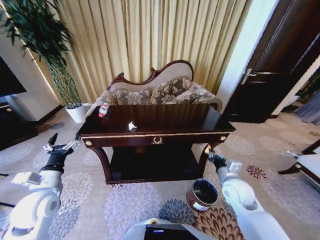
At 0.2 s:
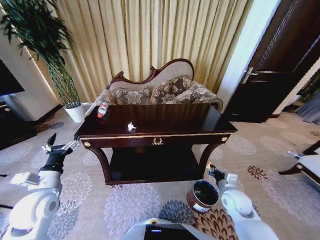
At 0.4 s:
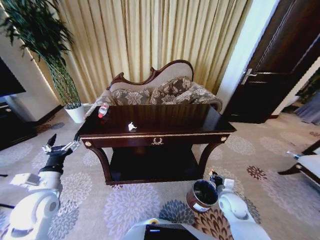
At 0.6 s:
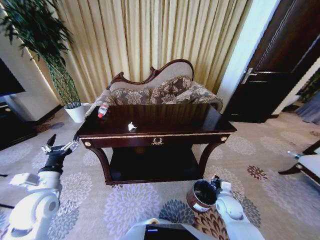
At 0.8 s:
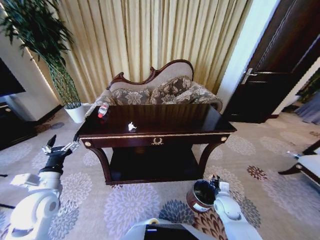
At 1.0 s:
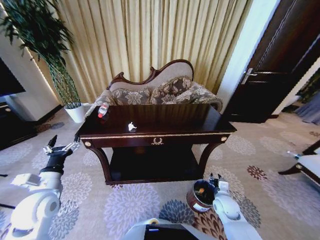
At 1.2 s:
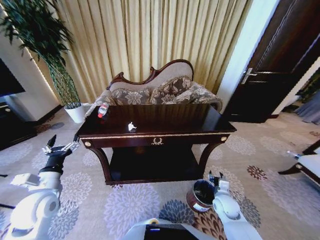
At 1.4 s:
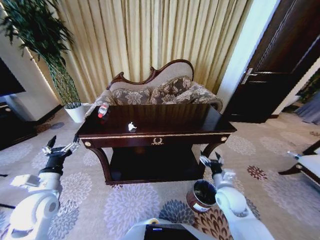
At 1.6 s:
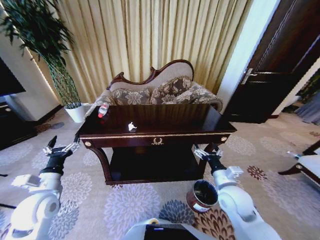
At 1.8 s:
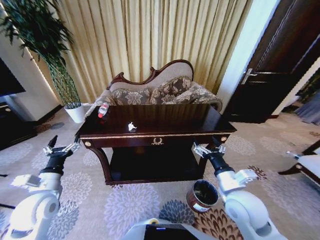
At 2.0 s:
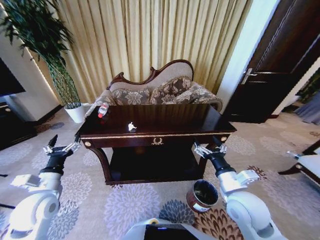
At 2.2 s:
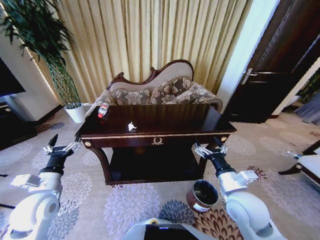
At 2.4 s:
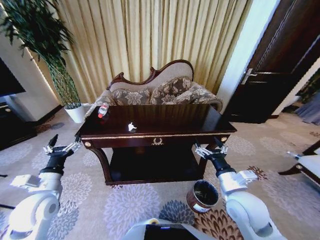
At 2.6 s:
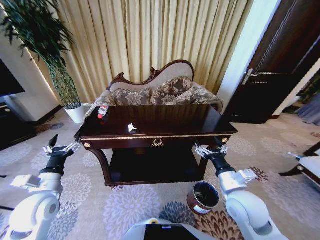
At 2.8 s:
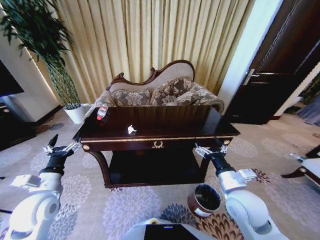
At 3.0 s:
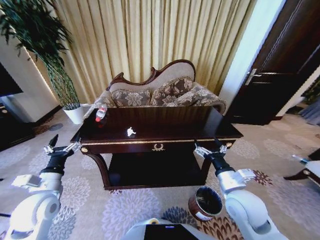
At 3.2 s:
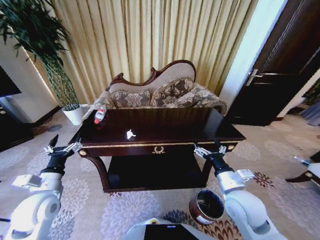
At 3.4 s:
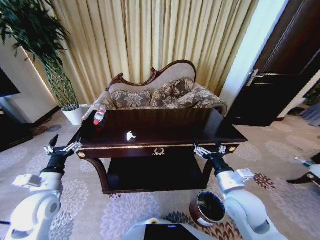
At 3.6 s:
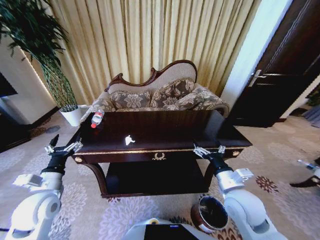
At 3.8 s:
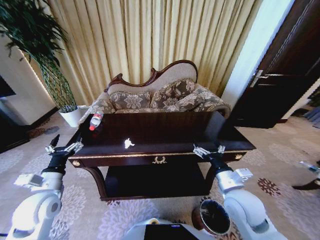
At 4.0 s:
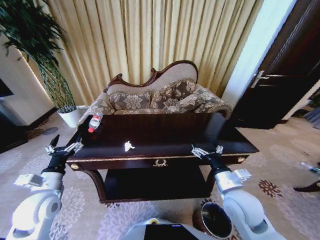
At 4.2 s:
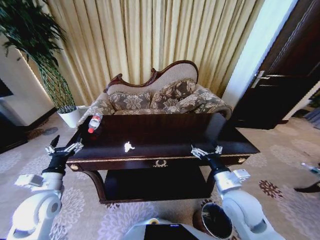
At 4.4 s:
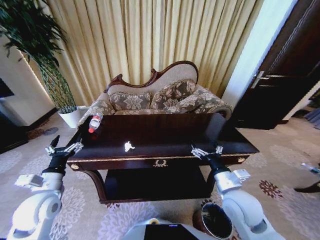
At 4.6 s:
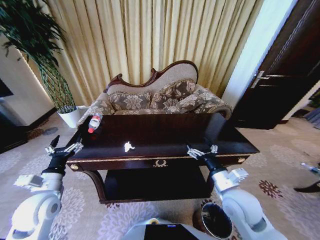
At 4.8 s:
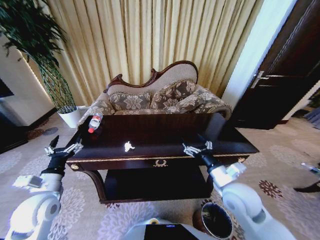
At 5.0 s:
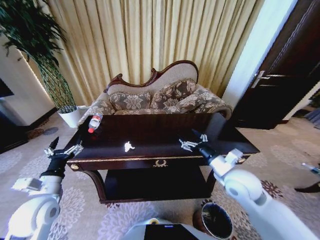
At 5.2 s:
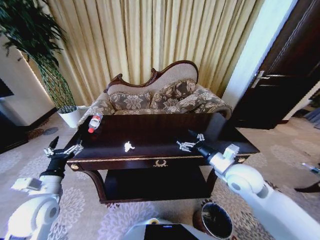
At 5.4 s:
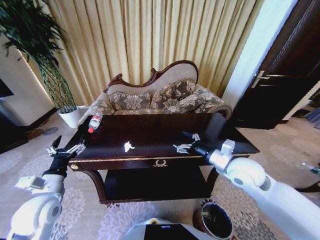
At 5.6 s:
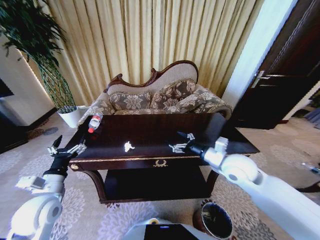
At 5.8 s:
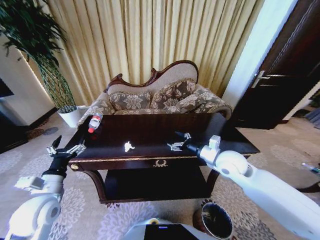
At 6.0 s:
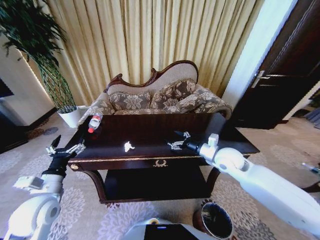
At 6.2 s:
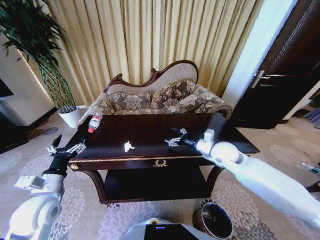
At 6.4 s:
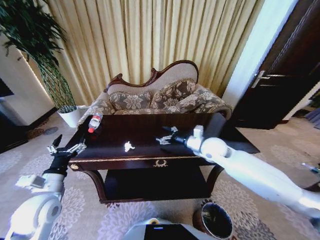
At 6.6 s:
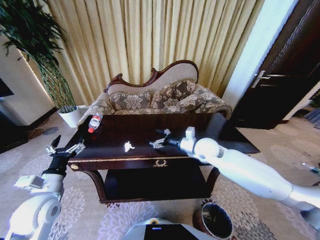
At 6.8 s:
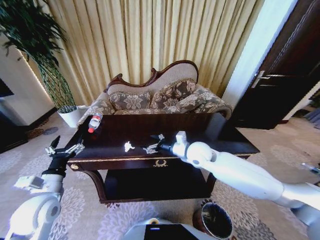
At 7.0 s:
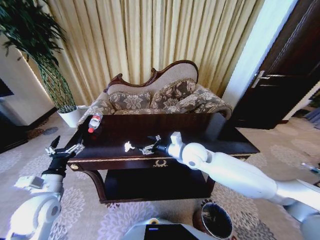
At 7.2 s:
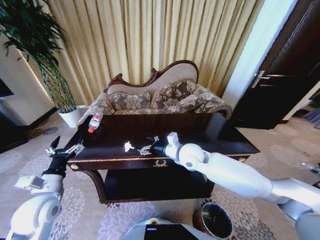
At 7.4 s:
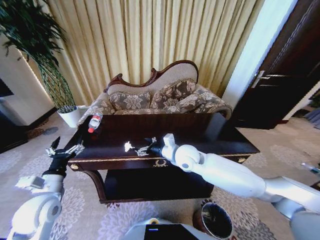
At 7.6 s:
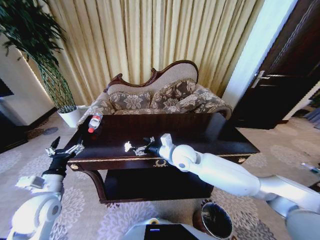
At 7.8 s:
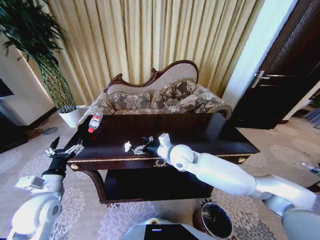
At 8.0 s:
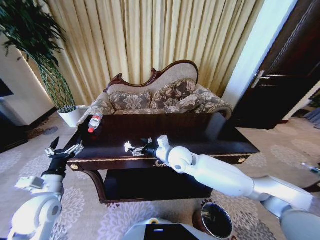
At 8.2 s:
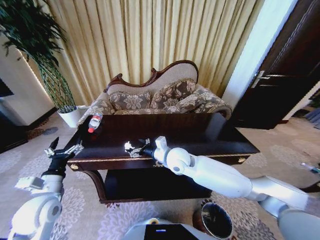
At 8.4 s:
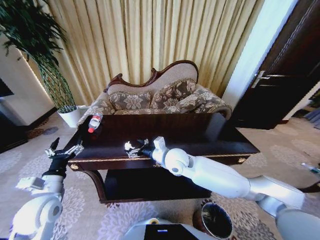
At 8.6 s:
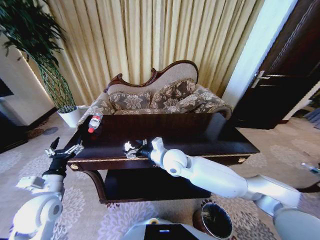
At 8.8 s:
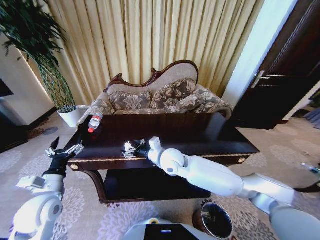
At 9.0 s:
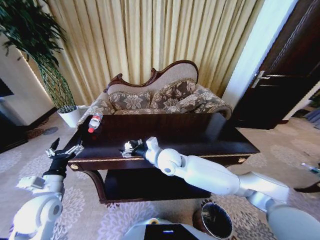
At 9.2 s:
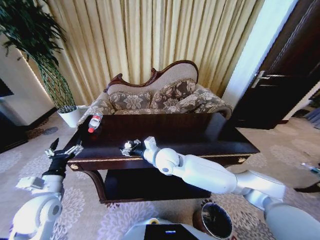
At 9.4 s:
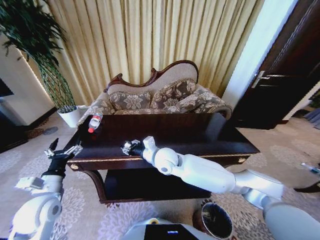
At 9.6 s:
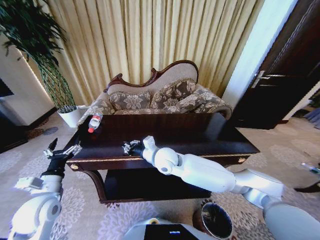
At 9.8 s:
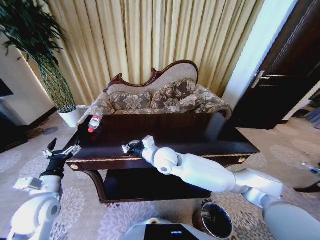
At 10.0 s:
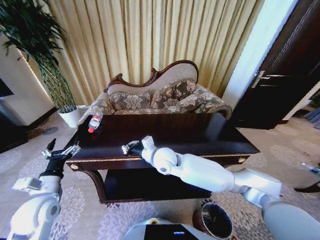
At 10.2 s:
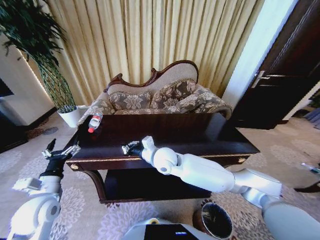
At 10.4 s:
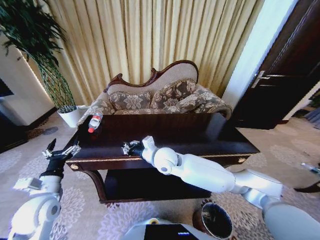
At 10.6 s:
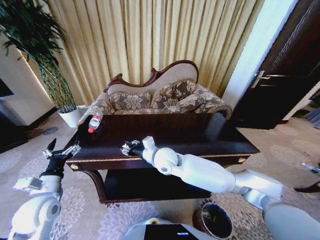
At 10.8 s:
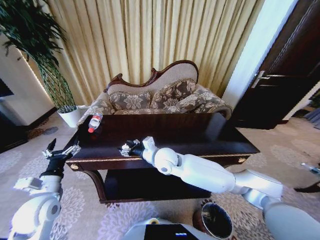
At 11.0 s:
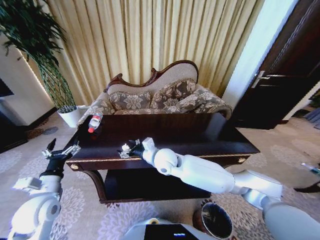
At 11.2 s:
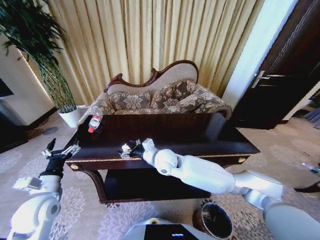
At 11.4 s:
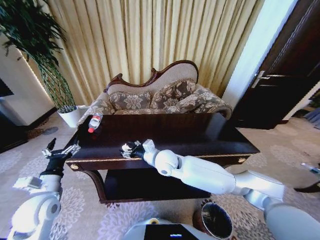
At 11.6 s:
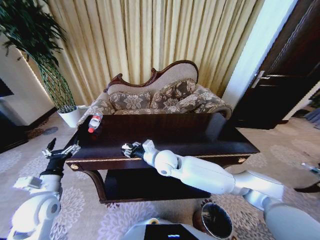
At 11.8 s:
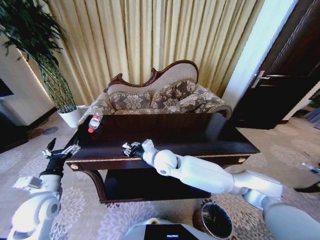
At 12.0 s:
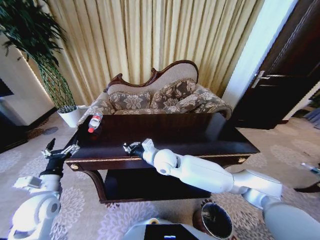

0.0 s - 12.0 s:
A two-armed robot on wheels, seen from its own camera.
Task of the whole recording: Move to the front of the table and place the trash on the table into the trash bin.
0.0 s - 1.6 s: The right gripper shifts approximately 5 cm to the left, moves some 15 cm downward and comes back, and opens.
4.4 s - 6.0 s: The right gripper shifts roughly 15 cm forward.
6.0 s - 7.6 s: The right gripper heads to the left, covering about 20 cm.
7.6 s - 9.0 s: The right gripper is displaced to the left by some 5 cm.
9.0 s - 10.4 s: The right gripper closes its fingers.
10.4 s - 12.0 s: The right gripper opens, then closes again.

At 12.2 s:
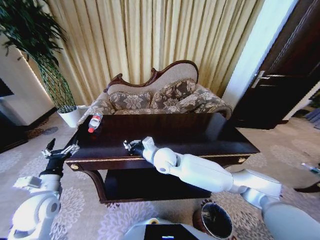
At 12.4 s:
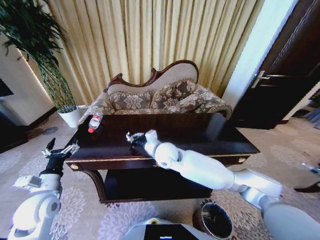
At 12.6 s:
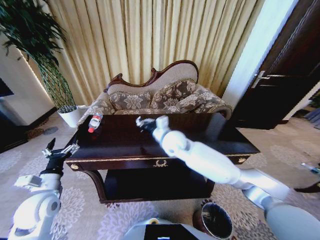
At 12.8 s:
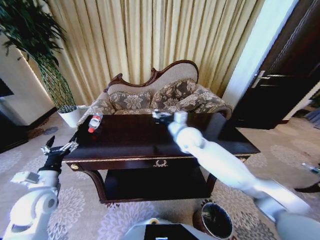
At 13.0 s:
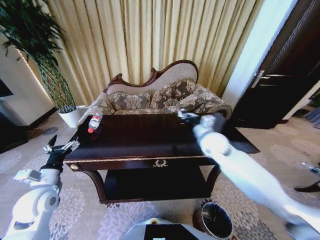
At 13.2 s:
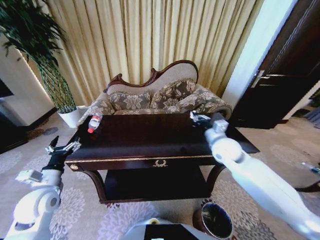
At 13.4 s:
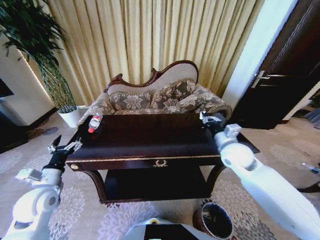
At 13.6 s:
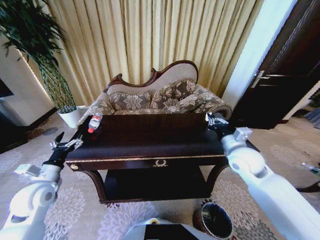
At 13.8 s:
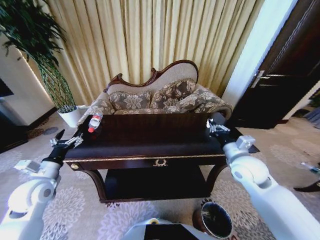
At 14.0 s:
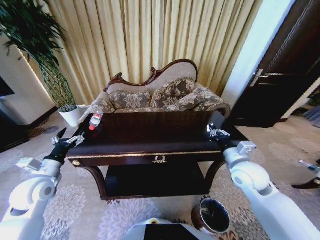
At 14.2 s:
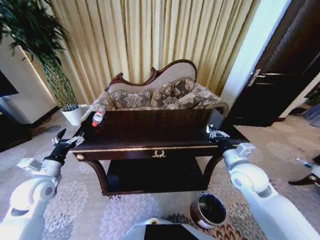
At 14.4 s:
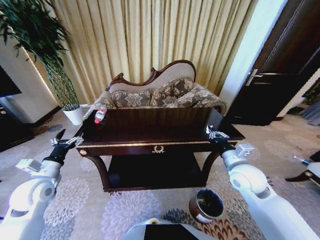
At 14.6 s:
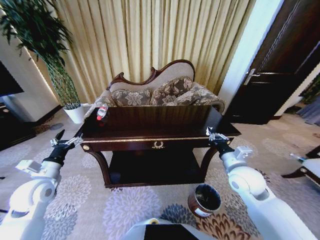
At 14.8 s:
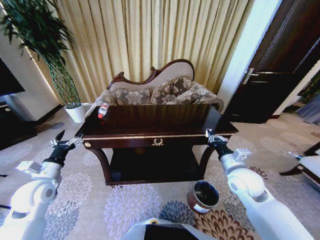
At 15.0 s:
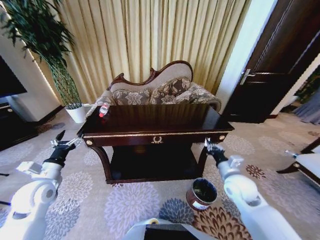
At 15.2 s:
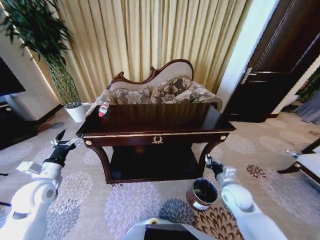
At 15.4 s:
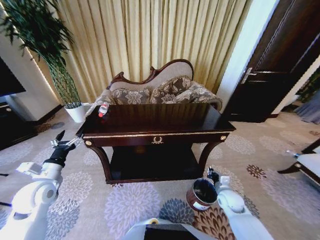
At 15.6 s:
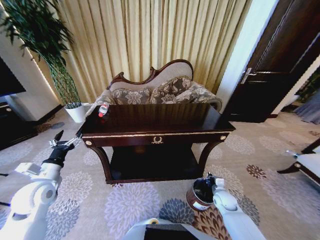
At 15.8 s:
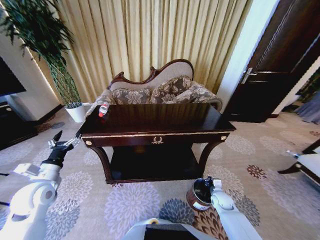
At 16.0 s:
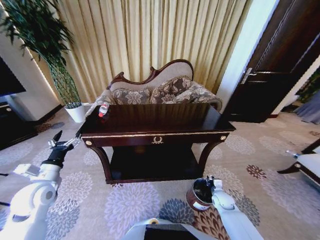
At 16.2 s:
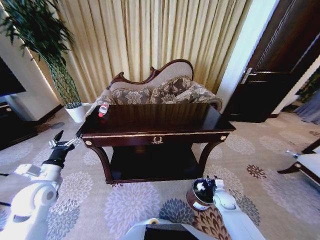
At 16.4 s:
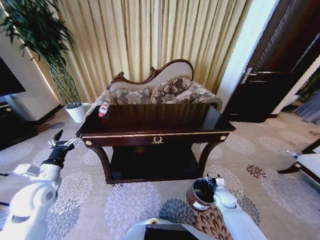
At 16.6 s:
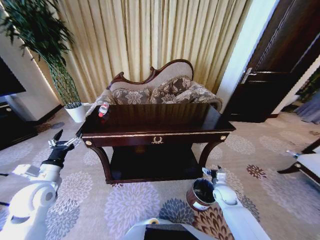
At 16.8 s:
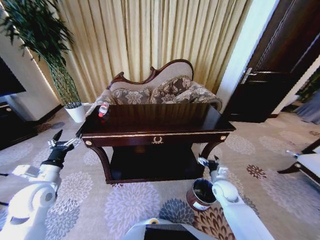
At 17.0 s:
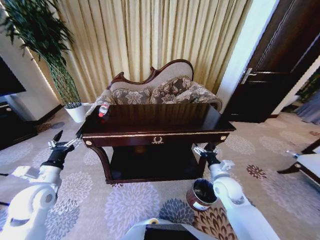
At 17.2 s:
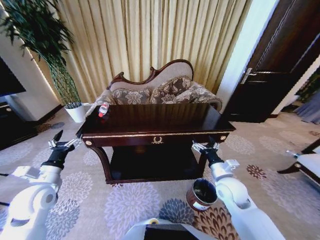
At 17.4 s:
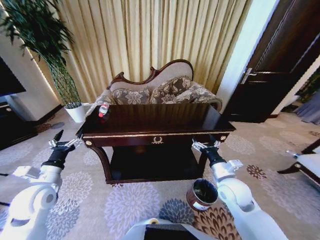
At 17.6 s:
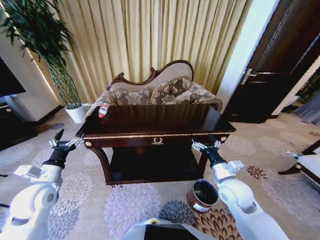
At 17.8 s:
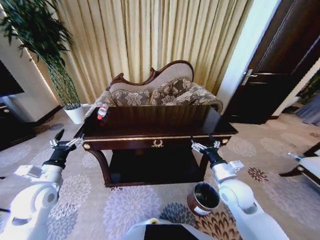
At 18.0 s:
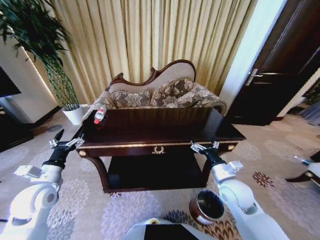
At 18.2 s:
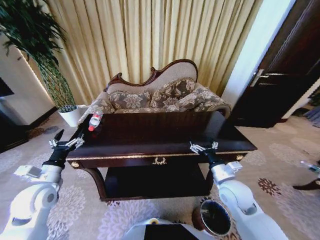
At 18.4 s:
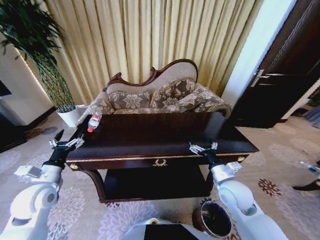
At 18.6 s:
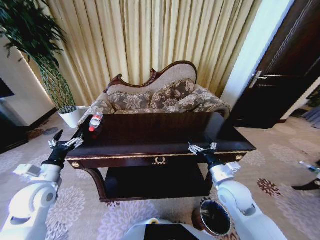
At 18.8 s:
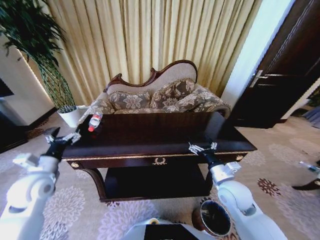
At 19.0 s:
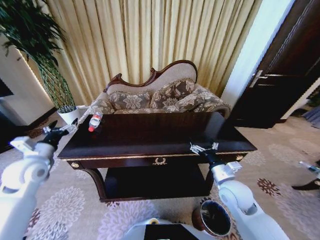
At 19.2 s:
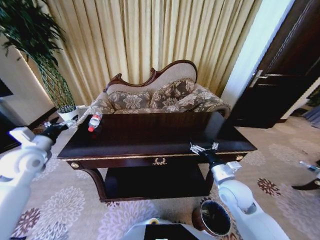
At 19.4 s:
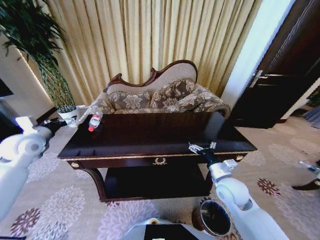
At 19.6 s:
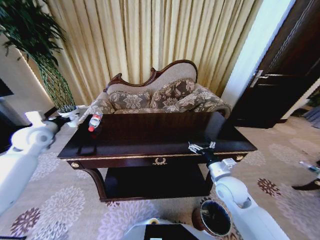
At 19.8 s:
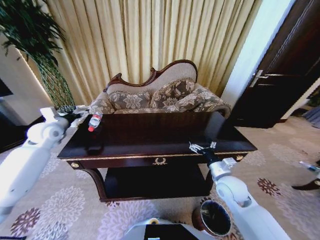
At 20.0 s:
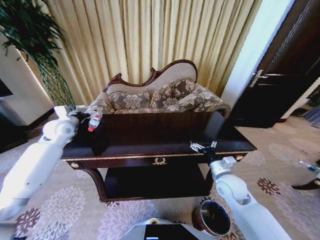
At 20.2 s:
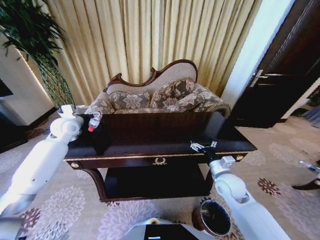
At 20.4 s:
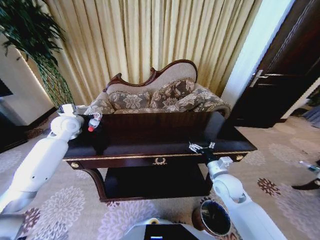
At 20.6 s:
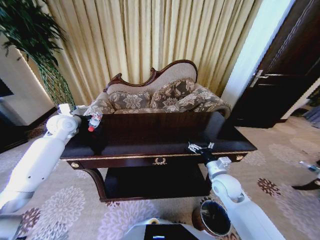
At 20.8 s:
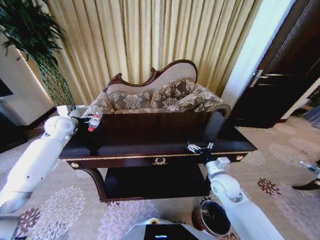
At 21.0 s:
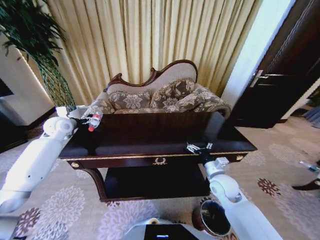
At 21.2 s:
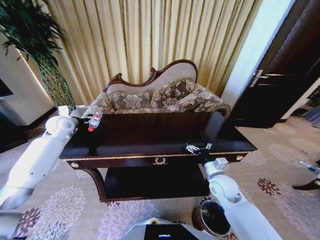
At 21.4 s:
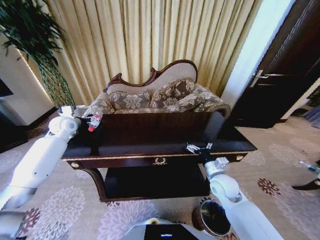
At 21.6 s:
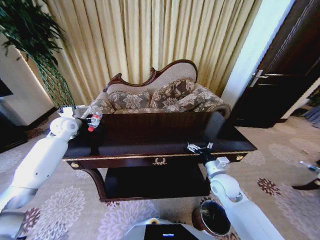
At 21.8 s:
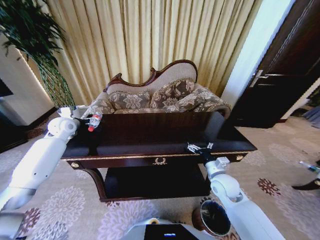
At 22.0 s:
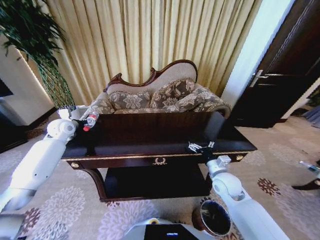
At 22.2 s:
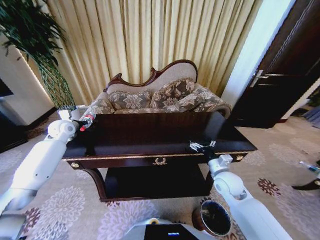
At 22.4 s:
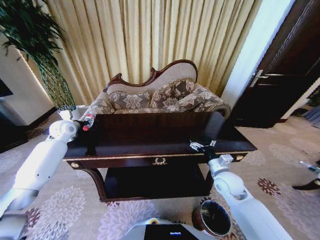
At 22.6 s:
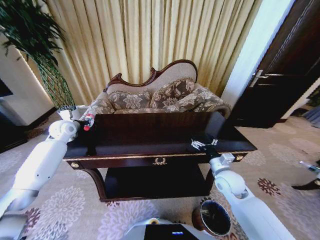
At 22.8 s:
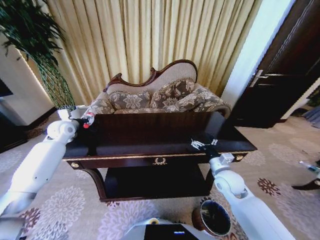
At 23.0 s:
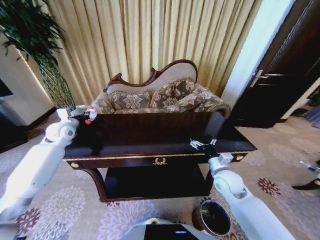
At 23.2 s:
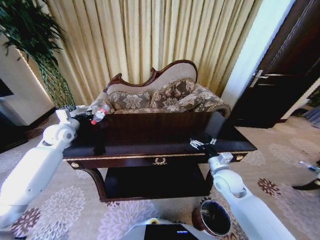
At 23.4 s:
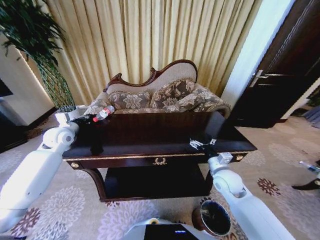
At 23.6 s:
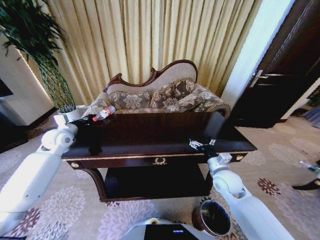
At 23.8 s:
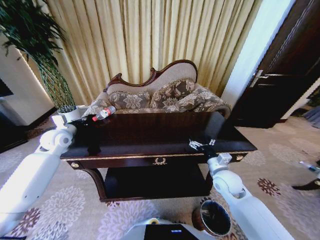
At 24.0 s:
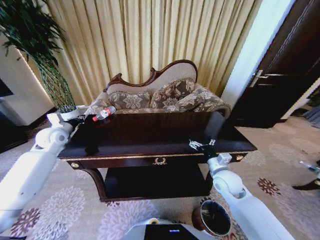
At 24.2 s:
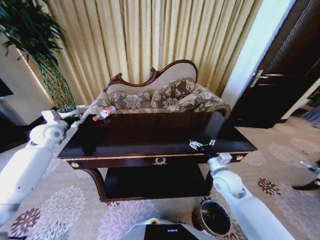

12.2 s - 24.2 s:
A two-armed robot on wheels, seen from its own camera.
Task of the whole recording: Move to the front of the table and place the trash on the table into the trash bin.
12.2 s - 13.8 s: The left gripper ends up roughly 5 cm from where it was. Meanwhile the right gripper heads to the right, covering approximately 30 cm.
13.8 s - 15.2 s: The right gripper shifts roughly 15 cm downward.
15.2 s - 16.6 s: The right gripper moves downward, roughly 15 cm, and opens.
16.6 s - 18.2 s: The right gripper is displaced upward and to the left by approximately 20 cm.
18.2 s - 19.8 s: The left gripper shifts roughly 25 cm forward and upward.
19.8 s - 21.2 s: The left gripper is displaced forward by roughly 5 cm.
21.2 s - 22.6 s: The left gripper closes up.
22.6 s - 24.2 s: The left gripper shifts by approximately 5 cm.
